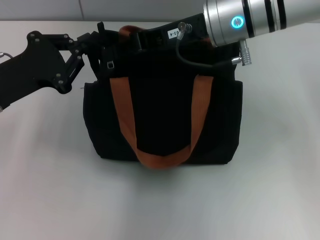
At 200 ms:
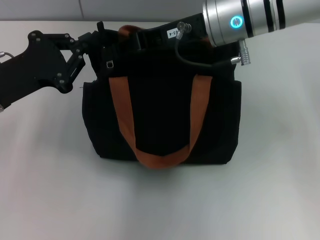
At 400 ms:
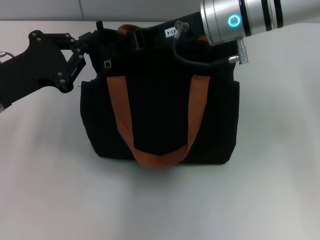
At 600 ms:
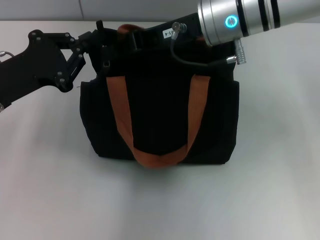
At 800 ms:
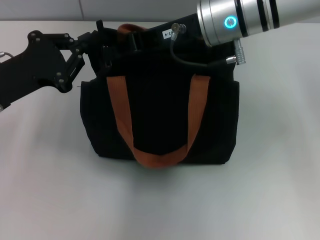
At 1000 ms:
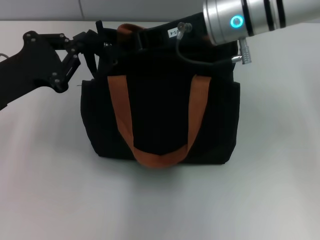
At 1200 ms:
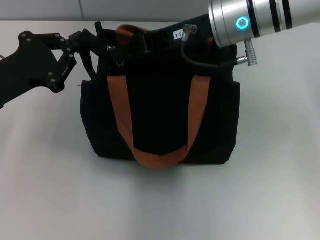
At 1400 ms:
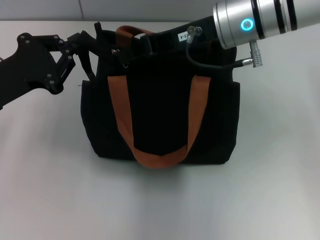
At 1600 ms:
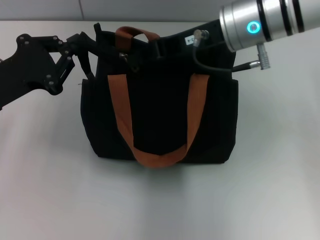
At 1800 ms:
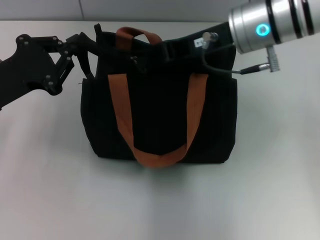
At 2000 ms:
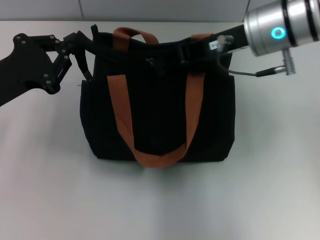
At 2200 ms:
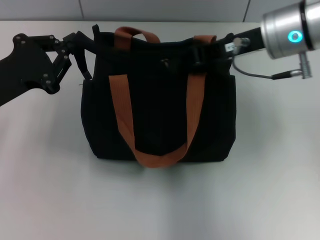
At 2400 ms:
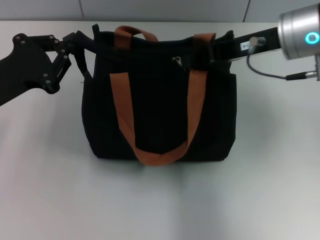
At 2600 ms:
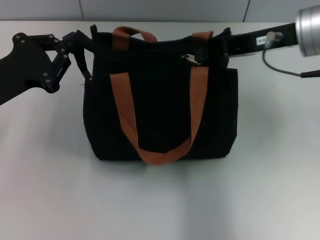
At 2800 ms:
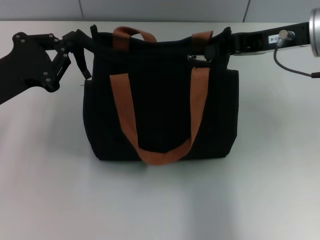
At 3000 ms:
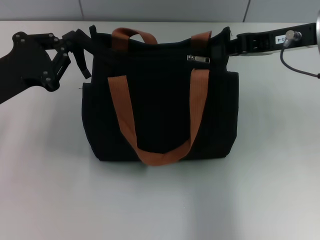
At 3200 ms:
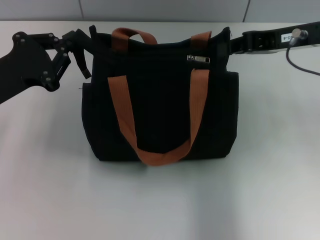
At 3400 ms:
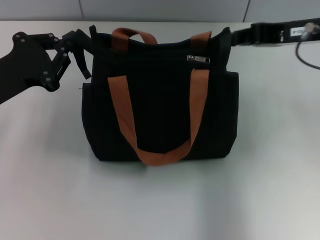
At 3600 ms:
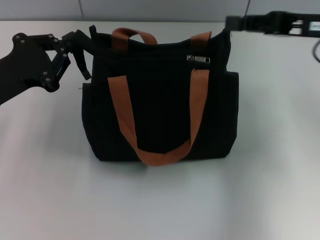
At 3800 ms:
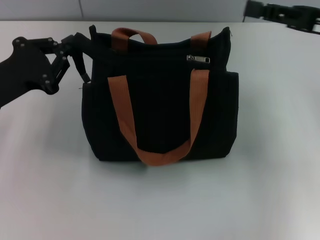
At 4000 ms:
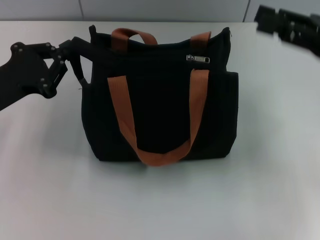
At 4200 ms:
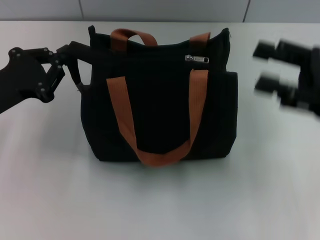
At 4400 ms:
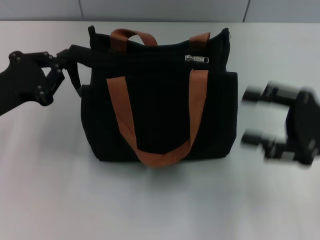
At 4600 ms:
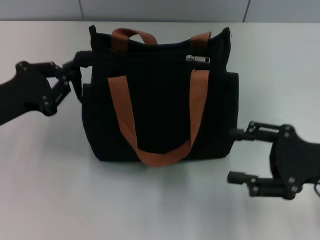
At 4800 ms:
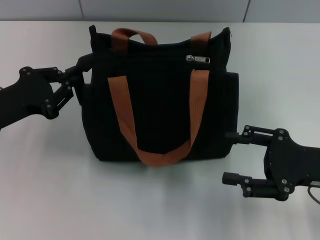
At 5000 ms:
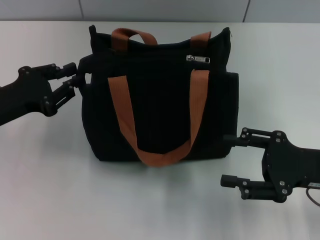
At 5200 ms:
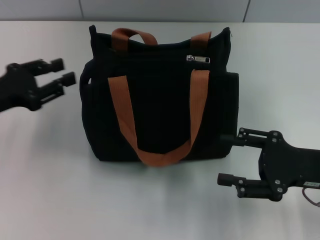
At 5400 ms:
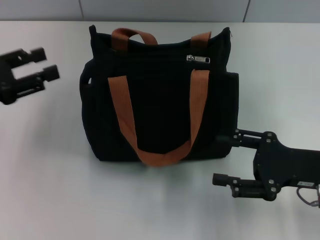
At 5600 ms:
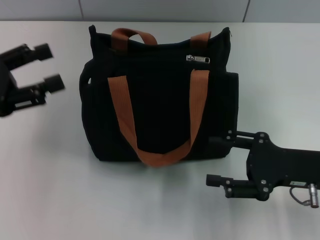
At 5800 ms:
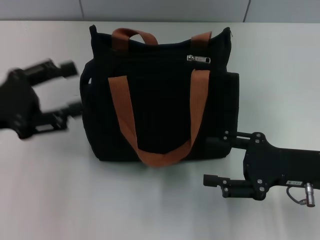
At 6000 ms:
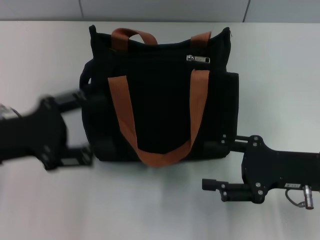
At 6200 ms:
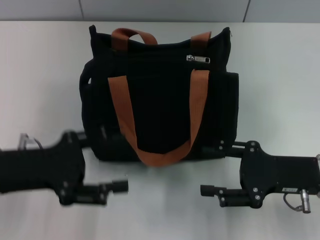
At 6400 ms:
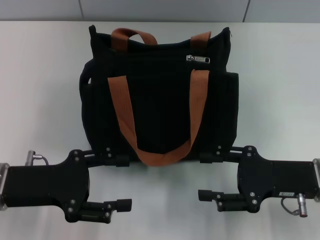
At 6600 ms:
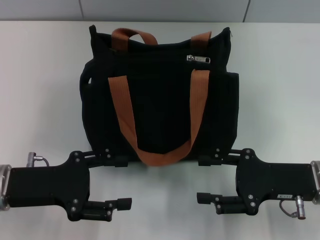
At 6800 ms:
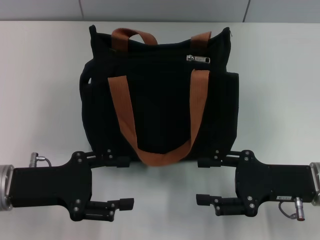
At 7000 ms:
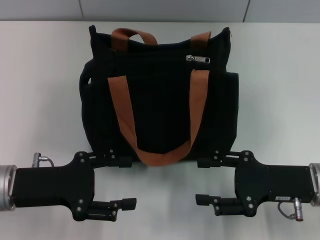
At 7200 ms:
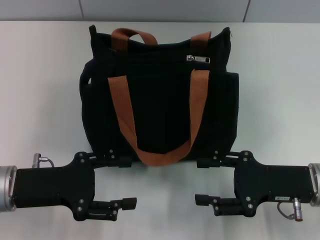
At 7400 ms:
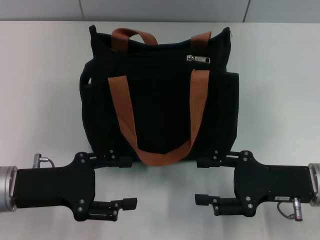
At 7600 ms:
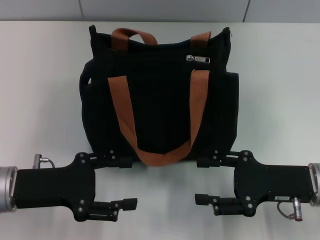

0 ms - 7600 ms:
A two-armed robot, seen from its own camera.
Step, 0 ms - 2800 ms: Pull up the zipper with your right hand.
0 ms - 1600 ms: The grippers make only small movements.
1600 ms - 3000 ms: The right gripper shifts approximately 10 cm to the right.
3000 ms - 4600 ms: The right gripper heads downward, backward and to the right, covering about 20 cm, and opens up.
4600 ms - 6000 ms: The left gripper opens.
6000 ms - 7600 ms: The left gripper shifts some 5 cm downward.
